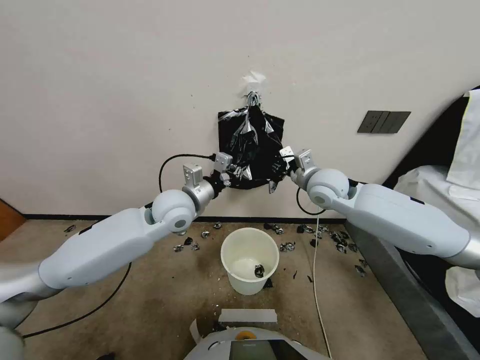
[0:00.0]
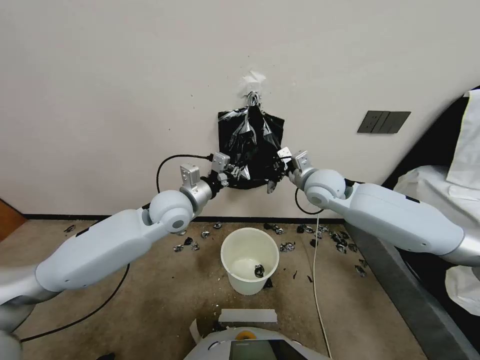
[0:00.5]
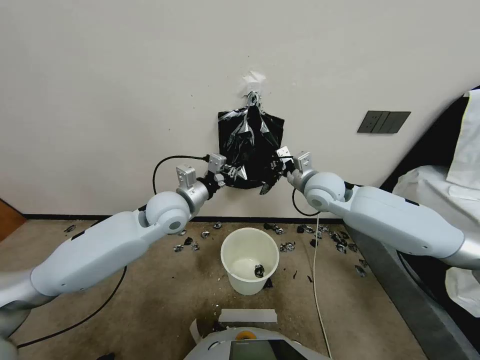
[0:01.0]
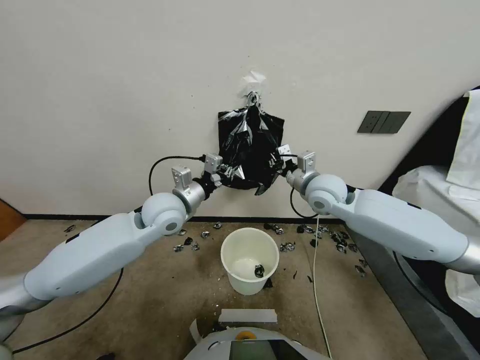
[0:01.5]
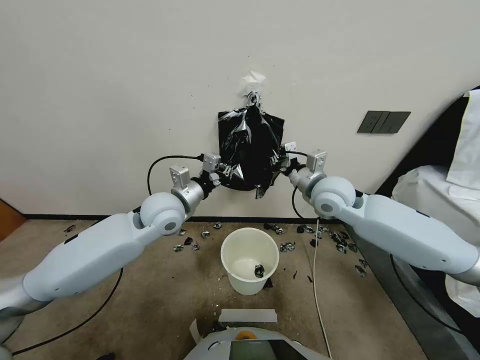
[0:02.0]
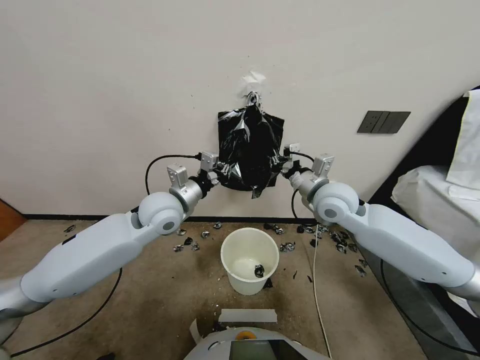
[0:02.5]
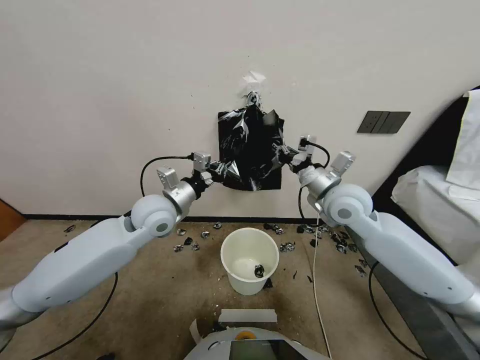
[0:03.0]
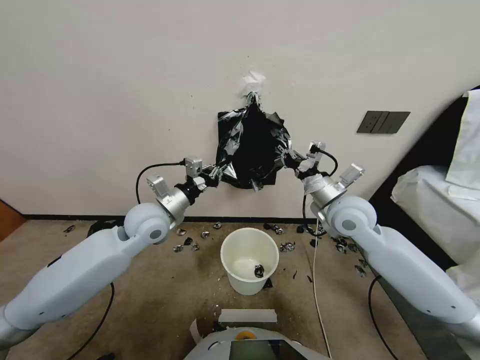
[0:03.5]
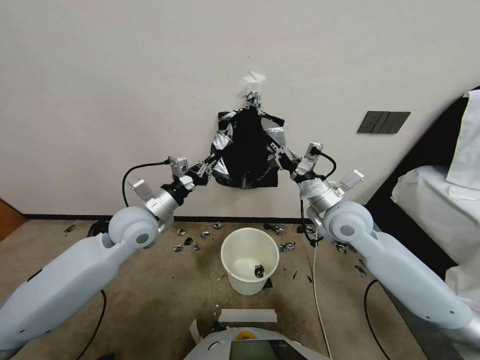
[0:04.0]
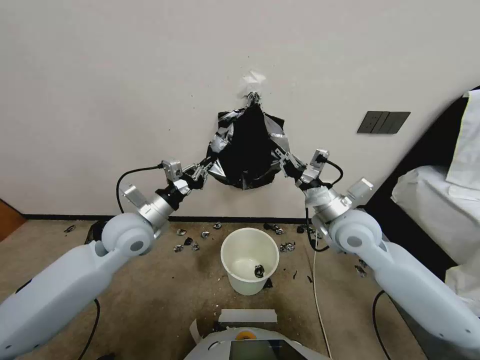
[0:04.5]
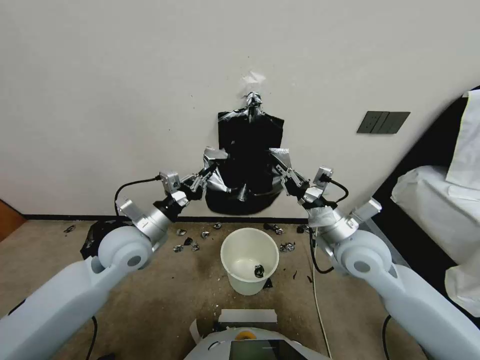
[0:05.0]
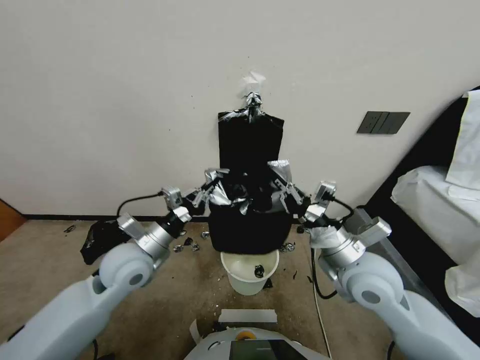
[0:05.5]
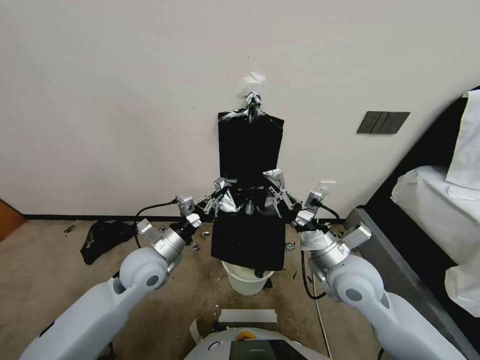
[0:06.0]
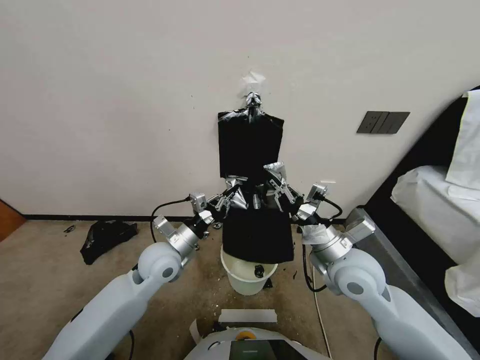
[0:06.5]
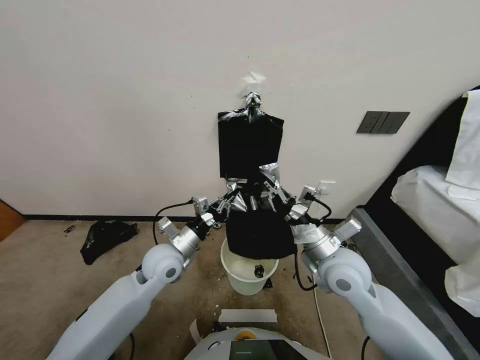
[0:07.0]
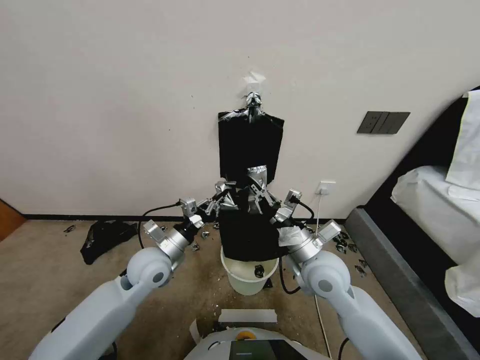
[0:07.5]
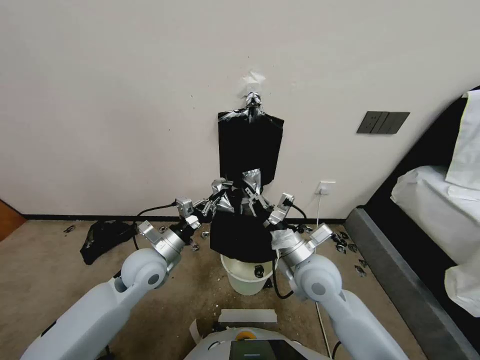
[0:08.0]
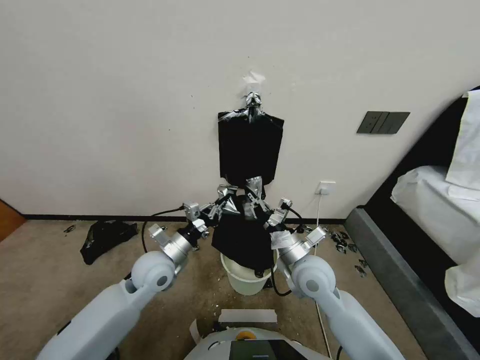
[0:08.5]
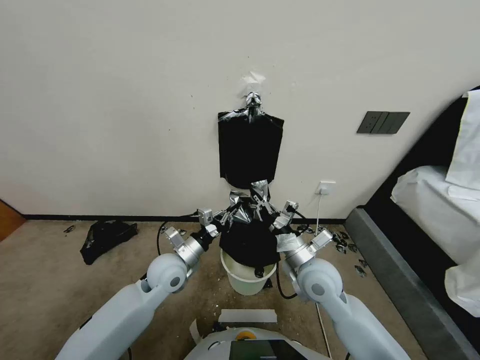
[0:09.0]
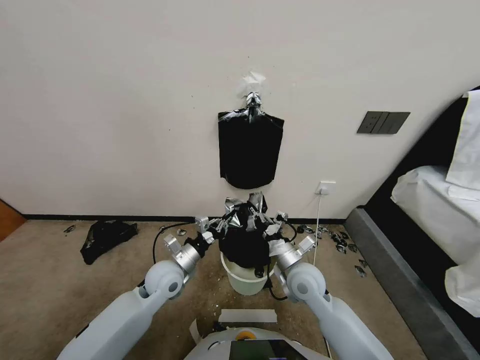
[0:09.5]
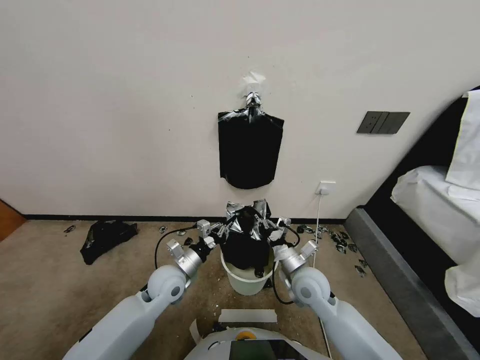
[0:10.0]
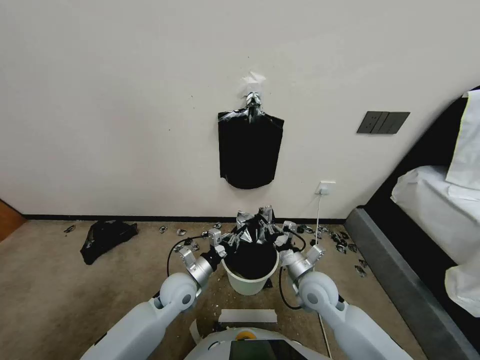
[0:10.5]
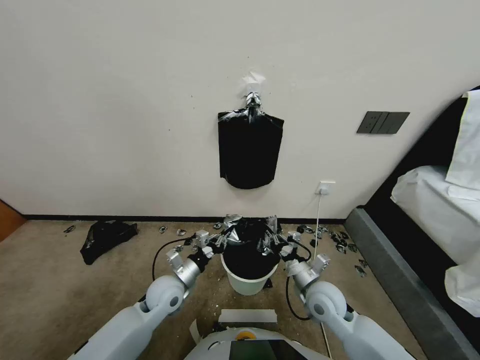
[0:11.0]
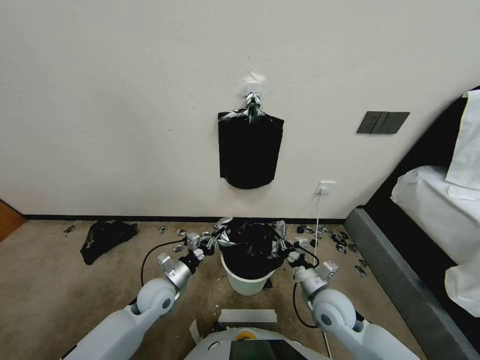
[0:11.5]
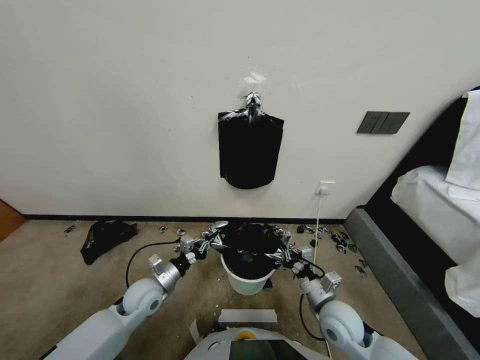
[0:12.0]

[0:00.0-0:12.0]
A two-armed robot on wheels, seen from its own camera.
Task of the whole recording: Place a trash bag onto the trash bin.
0:02.0 to 0:04.0: The right gripper is displaced backward by some 5 cm. Meanwhile the left gripper heads to the left, covering roughly 5 cm.
0:04.0 to 0:06.0: The right gripper heads backward and downward, covering about 10 cm. The left gripper moves downward and backward, roughly 10 cm.
0:06.0 to 0:08.0: The right gripper travels to the left by roughly 5 cm.
0:08.0 to 0:10.0: The grippers both shift downward by approximately 10 cm.
0:10.0 to 0:12.0: The left gripper shifts about 10 cm to the left. The right gripper is displaced backward and to the right by approximately 10 cm.

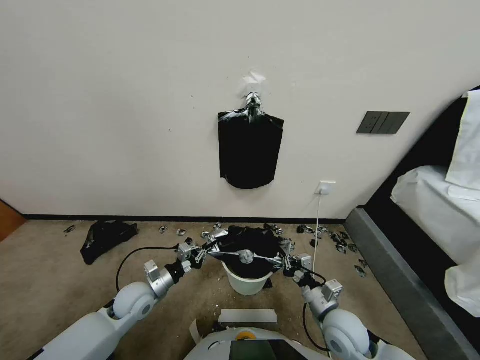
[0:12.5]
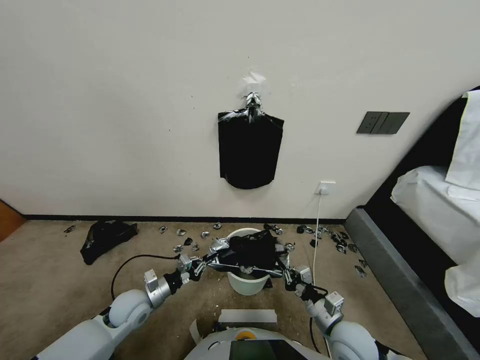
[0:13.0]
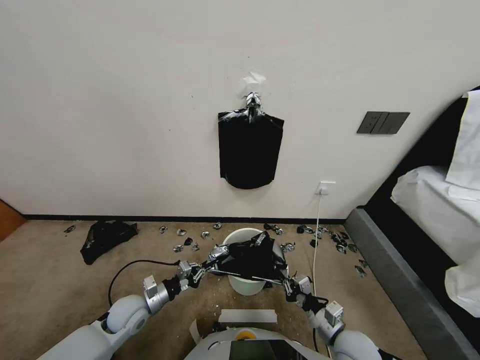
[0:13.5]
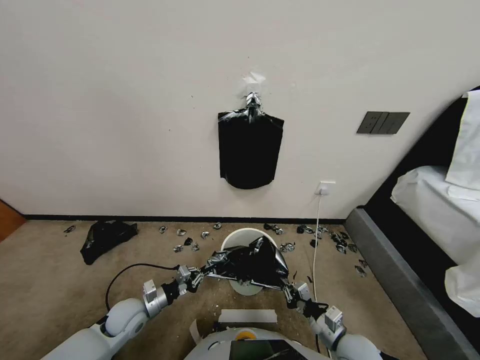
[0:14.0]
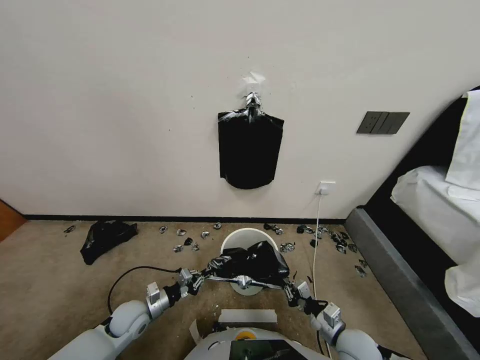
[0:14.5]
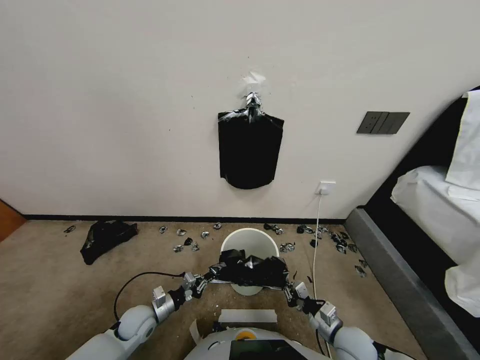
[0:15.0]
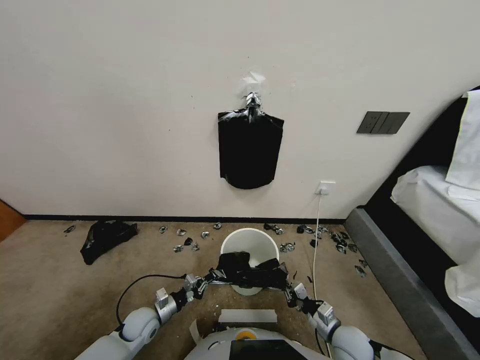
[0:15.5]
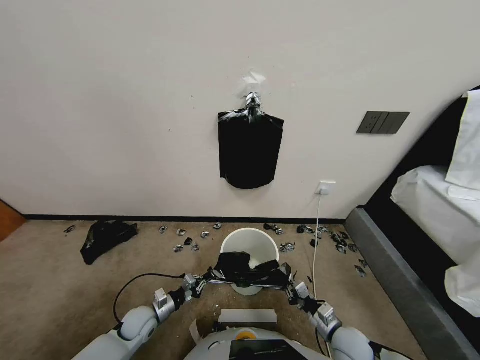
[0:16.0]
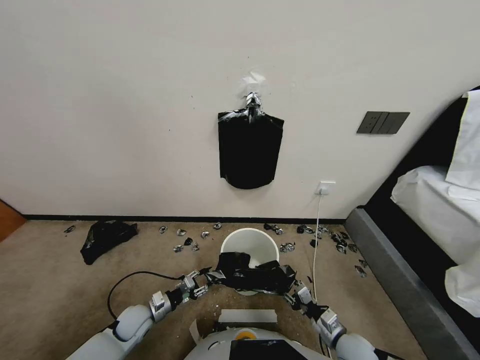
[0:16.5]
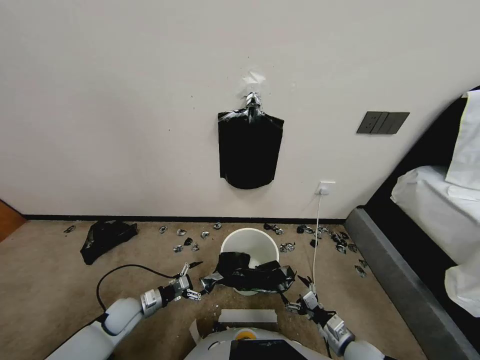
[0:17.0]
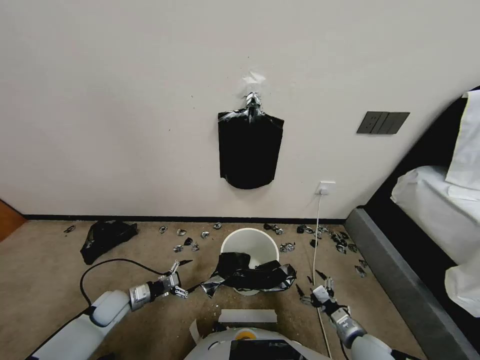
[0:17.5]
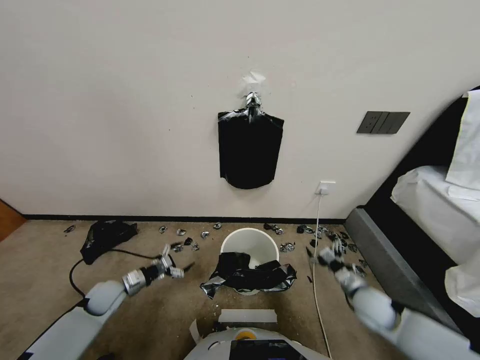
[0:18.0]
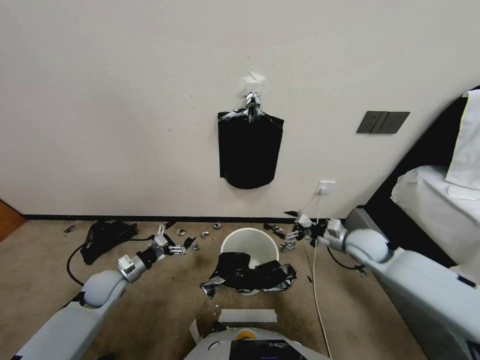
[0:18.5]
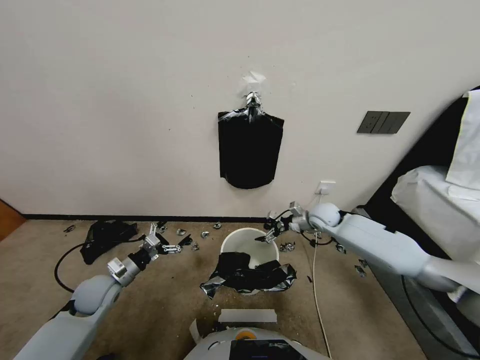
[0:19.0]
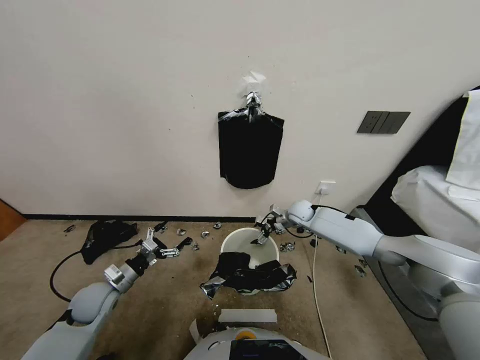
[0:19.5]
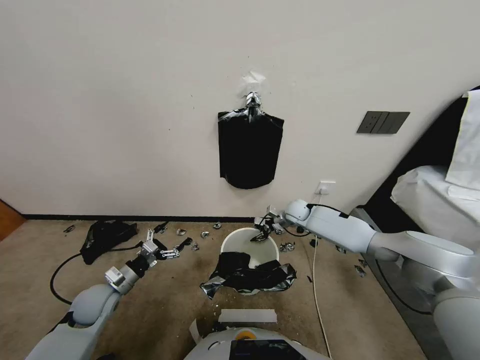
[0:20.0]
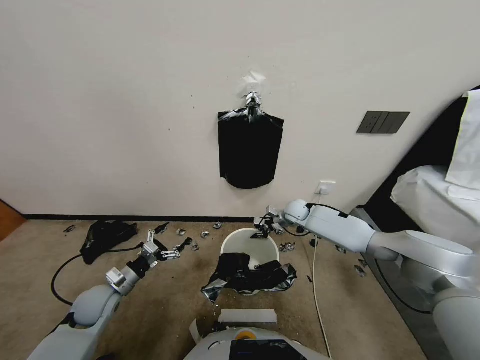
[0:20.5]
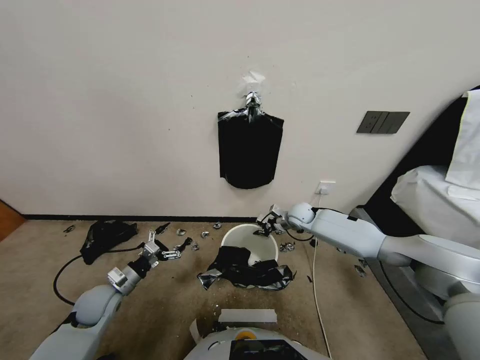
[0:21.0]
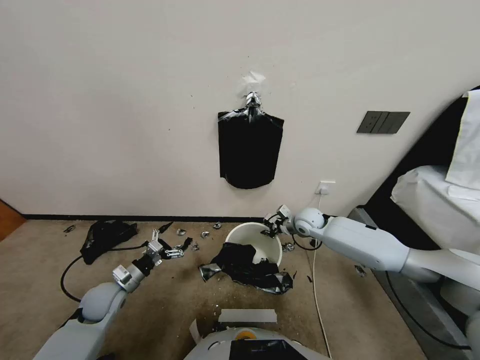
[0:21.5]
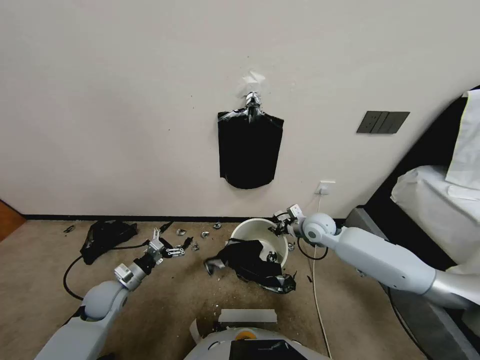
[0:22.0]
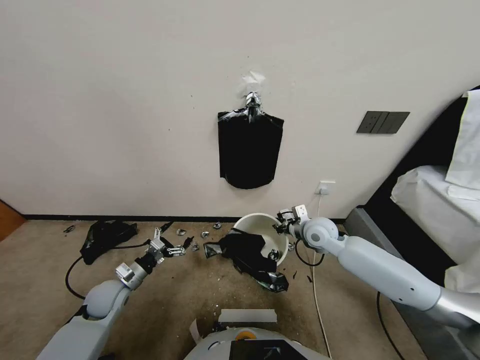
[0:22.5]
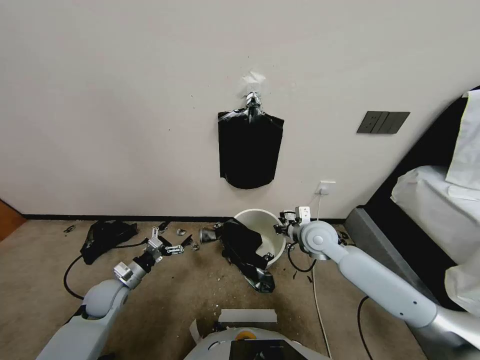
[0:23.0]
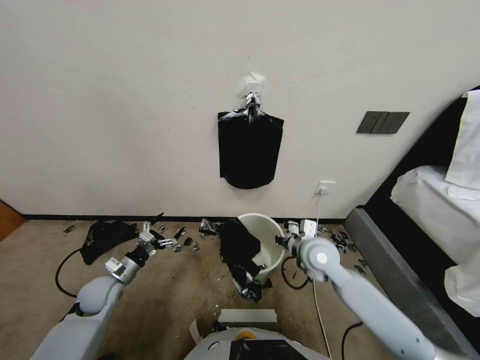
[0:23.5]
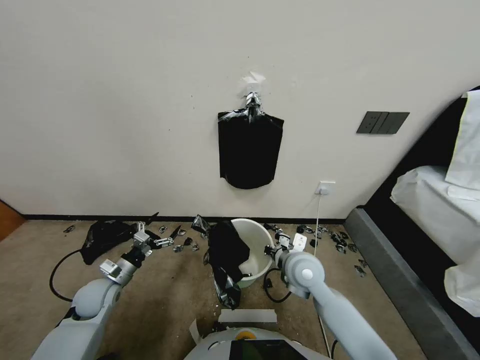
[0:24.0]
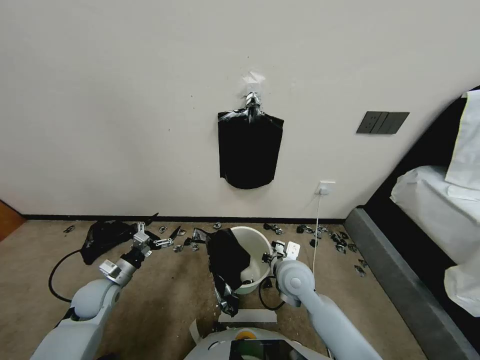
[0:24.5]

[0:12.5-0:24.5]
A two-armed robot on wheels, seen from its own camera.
Task of the whole recording: Place a trash bag onto the trash bin.
0:12.5 to 0:14.5: The left gripper goes roughly 5 cm downward. Meanwhile the right gripper changes place by approximately 5 cm.
0:14.5 to 0:16.5: The left gripper opens, while the right gripper opens.
0:16.5 to 0:18.5: The right gripper heads forward and upward, covering some 35 cm. Meanwhile the left gripper shifts about 15 cm upward, forward and to the left, and opens.
0:18.5 to 0:20.5: The right gripper moves forward, to the left and downward, some 20 cm, and closes its fingers.
0:20.5 to 0:22.5: The right gripper travels backward and upward by some 15 cm.
0:22.5 to 0:24.5: The right gripper travels backward, to the left and downward by about 15 cm.

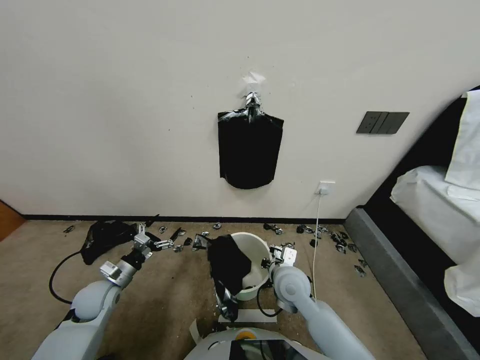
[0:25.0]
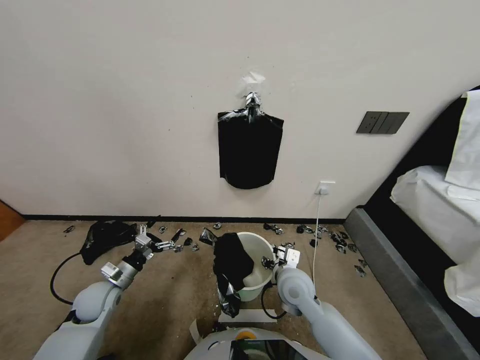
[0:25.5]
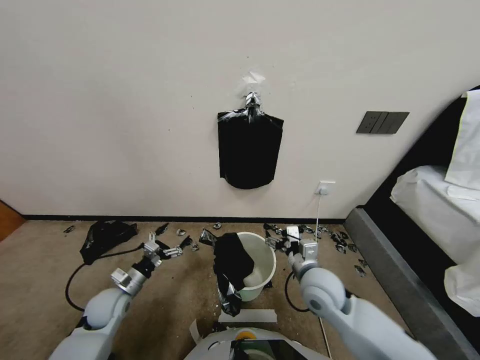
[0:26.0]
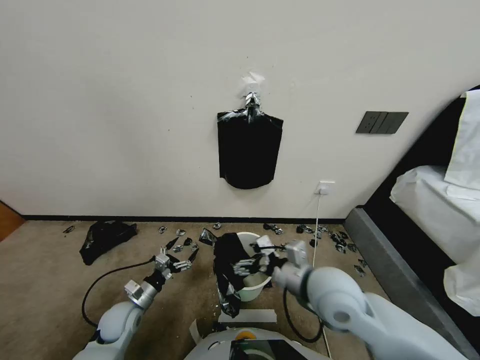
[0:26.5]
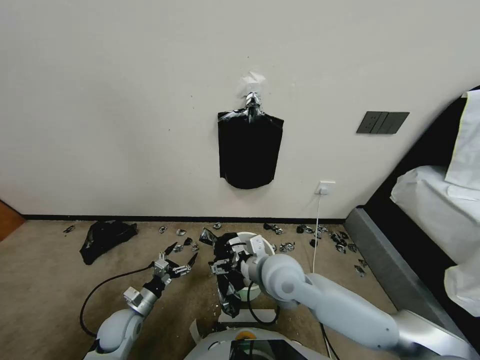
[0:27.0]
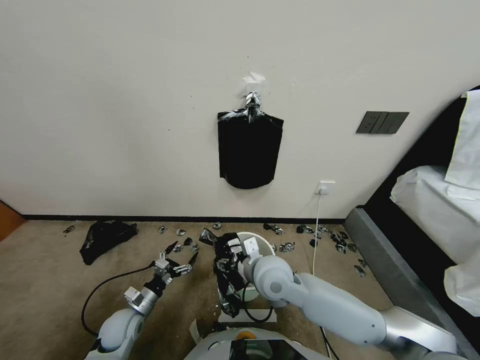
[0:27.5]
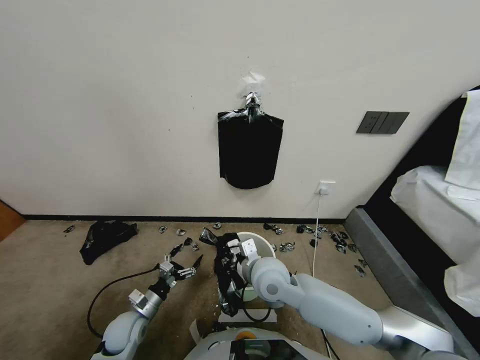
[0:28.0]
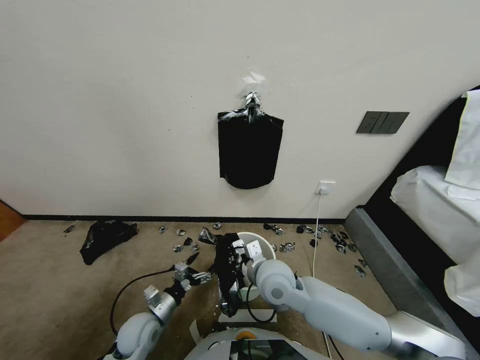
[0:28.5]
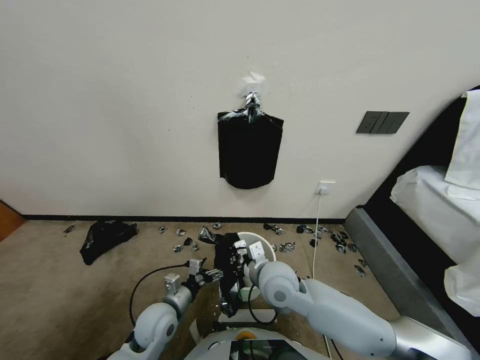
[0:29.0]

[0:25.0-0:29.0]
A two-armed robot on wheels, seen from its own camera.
Task of the whole recording: Place a trash bag onto the trash bin.
0:25.0 to 0:27.0: The left gripper heads downward, backward and to the right, covering approximately 10 cm. Meanwhile the right gripper shifts some 10 cm upward and to the left, and opens up.
0:27.0 to 0:29.0: The right gripper closes. Meanwhile the left gripper shifts some 15 cm to the right and upward.
